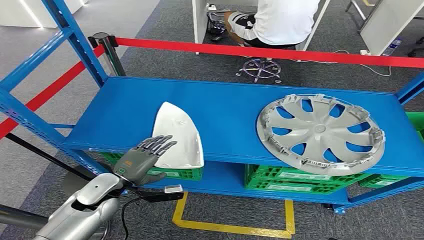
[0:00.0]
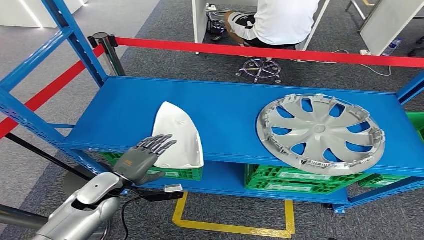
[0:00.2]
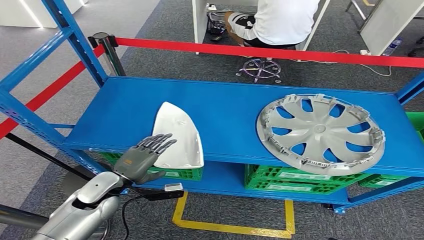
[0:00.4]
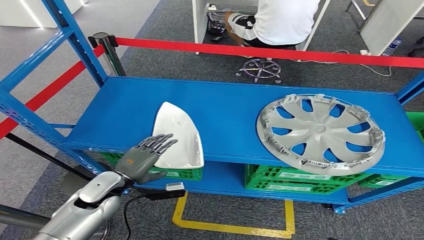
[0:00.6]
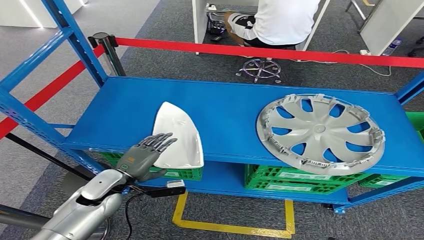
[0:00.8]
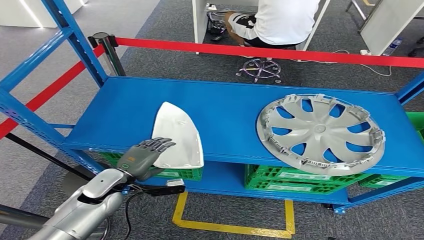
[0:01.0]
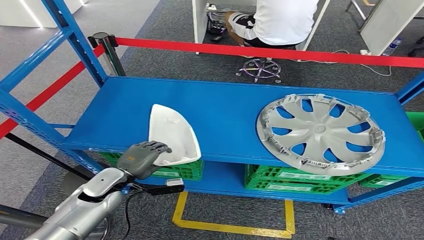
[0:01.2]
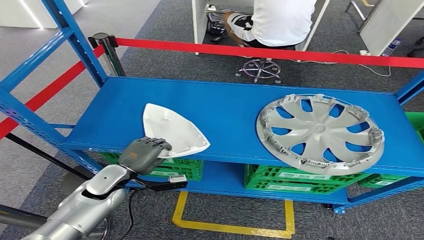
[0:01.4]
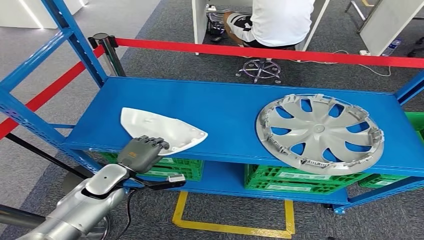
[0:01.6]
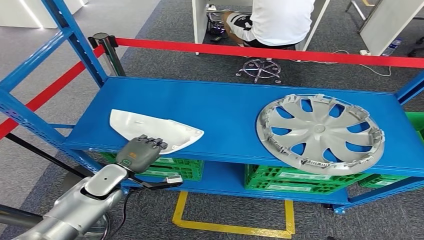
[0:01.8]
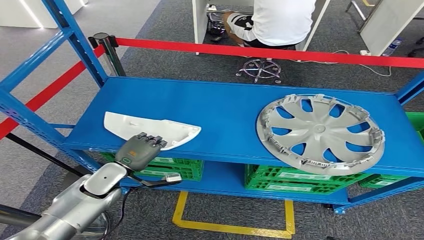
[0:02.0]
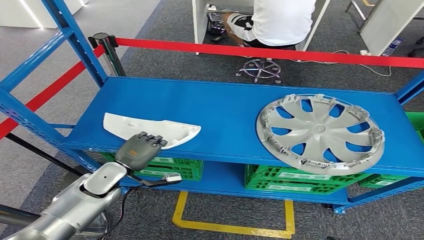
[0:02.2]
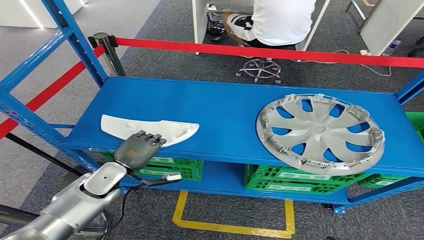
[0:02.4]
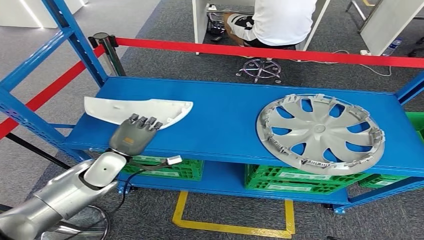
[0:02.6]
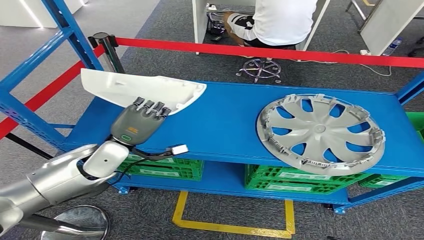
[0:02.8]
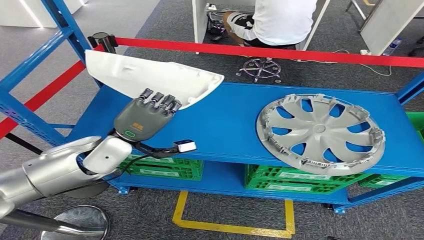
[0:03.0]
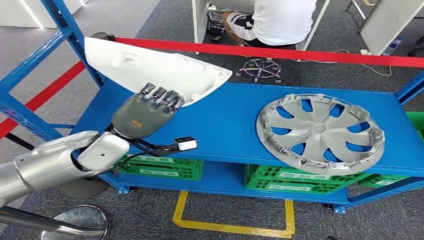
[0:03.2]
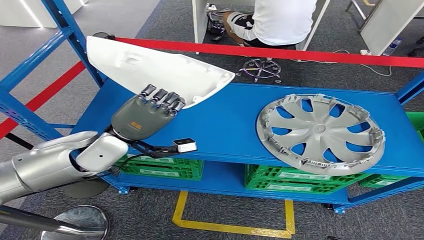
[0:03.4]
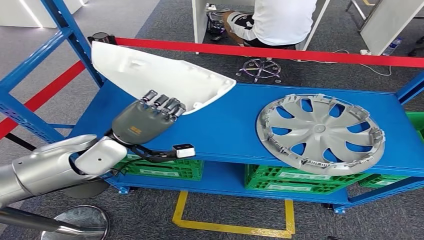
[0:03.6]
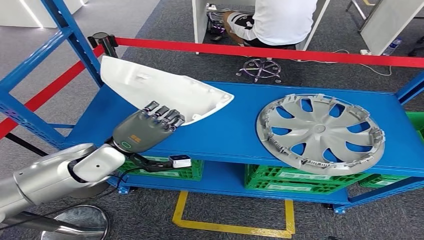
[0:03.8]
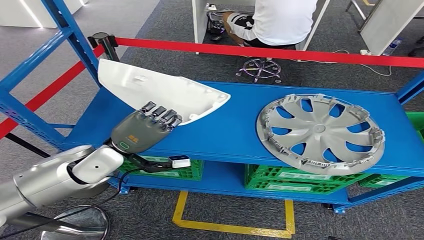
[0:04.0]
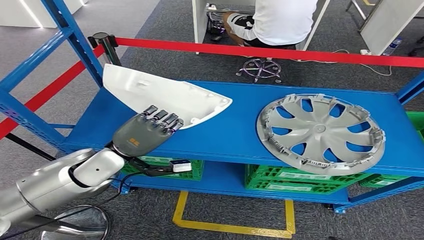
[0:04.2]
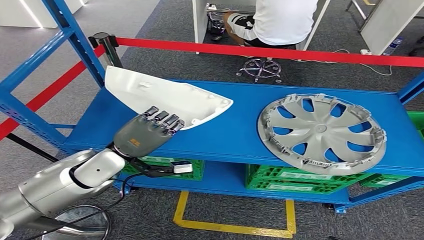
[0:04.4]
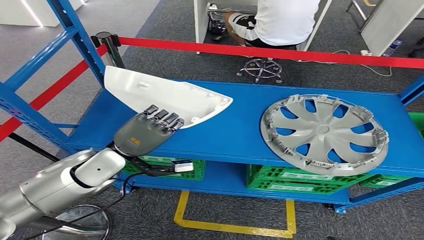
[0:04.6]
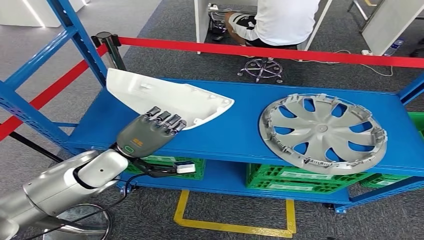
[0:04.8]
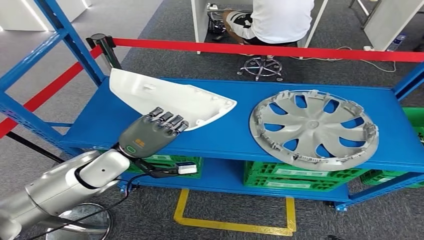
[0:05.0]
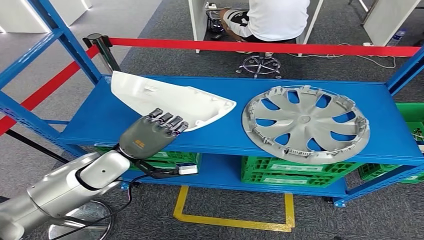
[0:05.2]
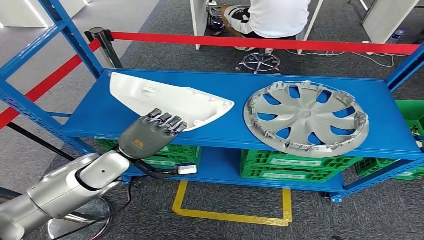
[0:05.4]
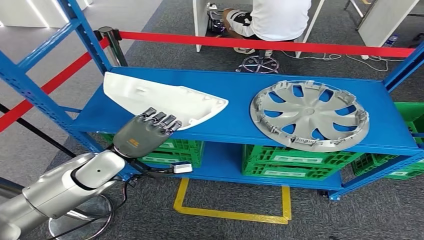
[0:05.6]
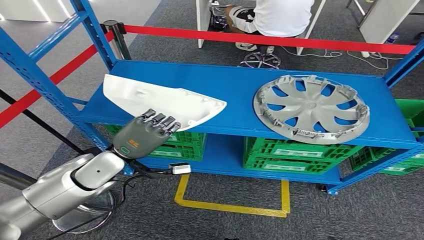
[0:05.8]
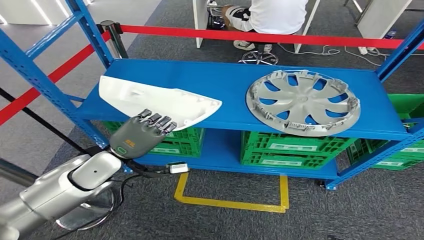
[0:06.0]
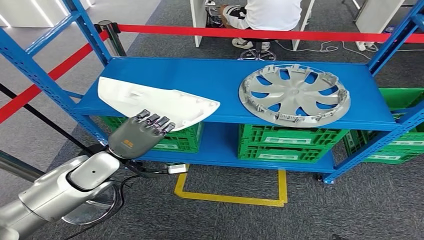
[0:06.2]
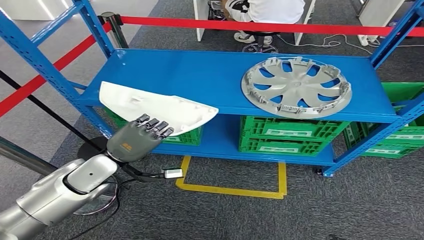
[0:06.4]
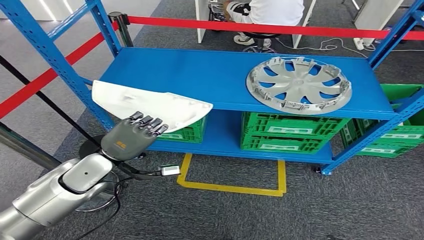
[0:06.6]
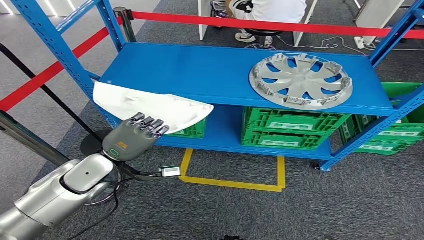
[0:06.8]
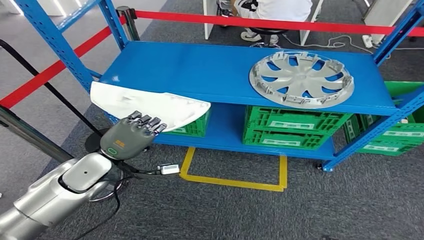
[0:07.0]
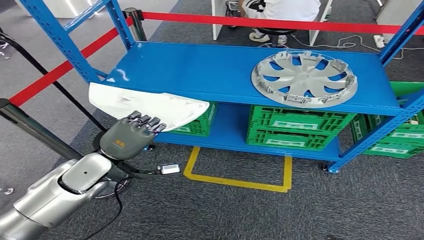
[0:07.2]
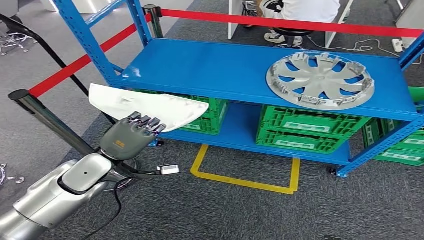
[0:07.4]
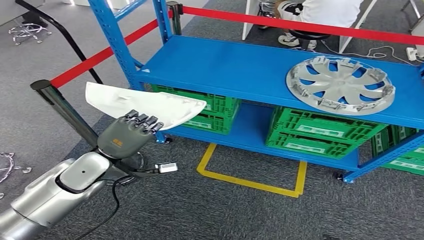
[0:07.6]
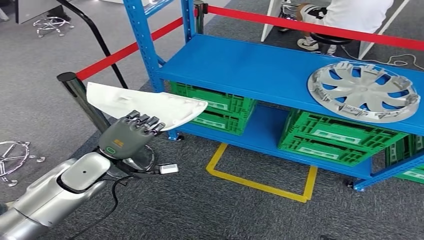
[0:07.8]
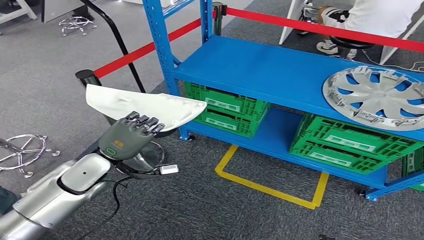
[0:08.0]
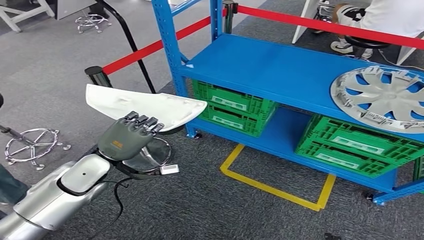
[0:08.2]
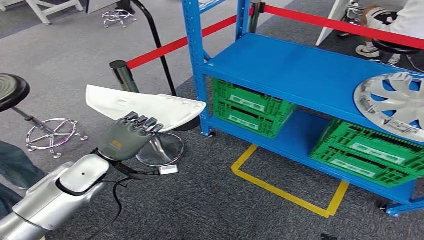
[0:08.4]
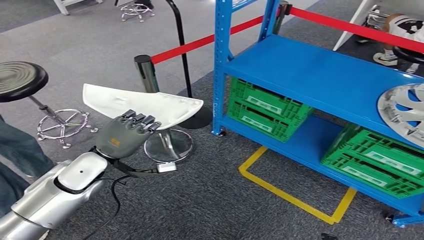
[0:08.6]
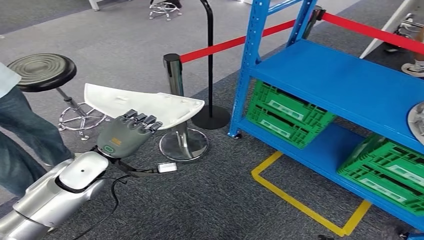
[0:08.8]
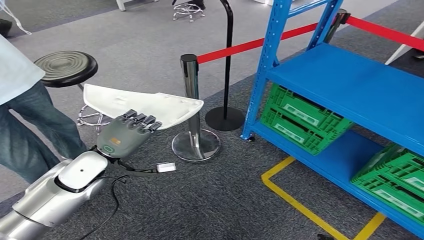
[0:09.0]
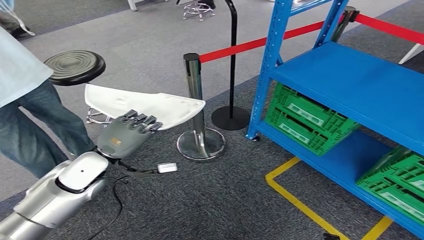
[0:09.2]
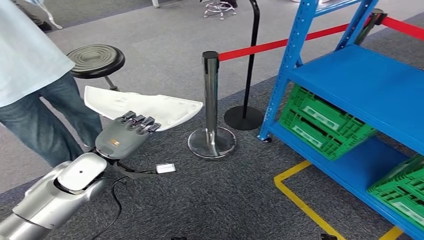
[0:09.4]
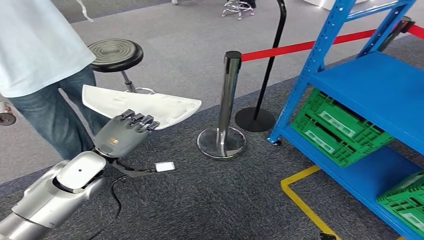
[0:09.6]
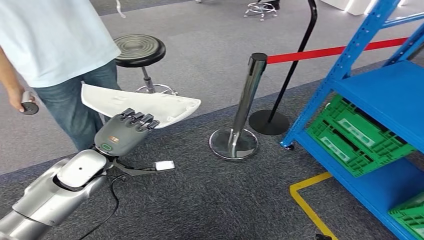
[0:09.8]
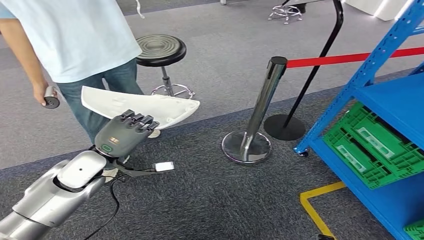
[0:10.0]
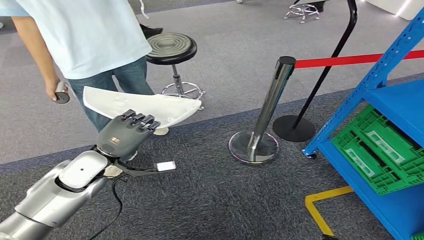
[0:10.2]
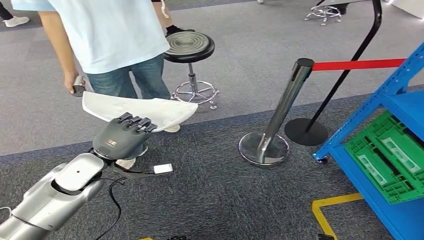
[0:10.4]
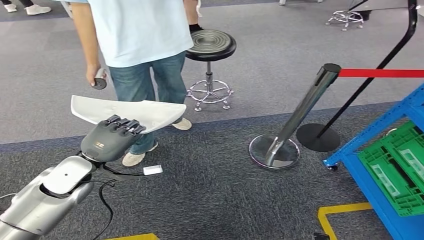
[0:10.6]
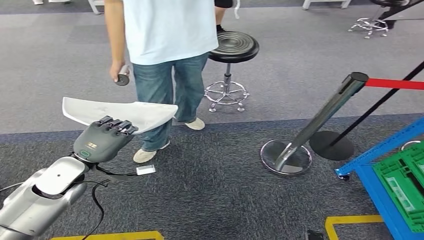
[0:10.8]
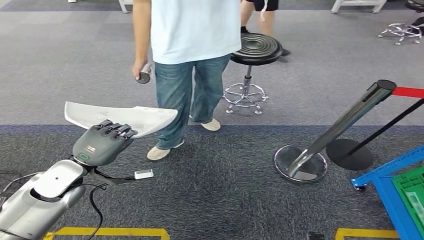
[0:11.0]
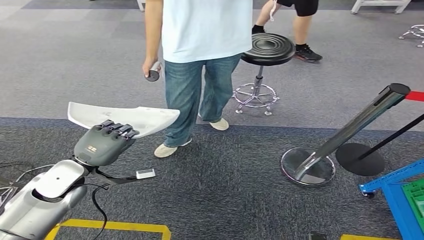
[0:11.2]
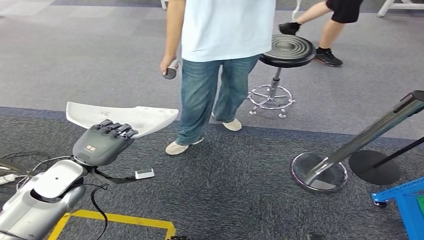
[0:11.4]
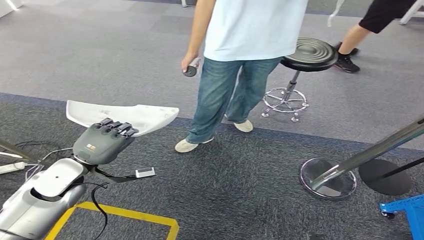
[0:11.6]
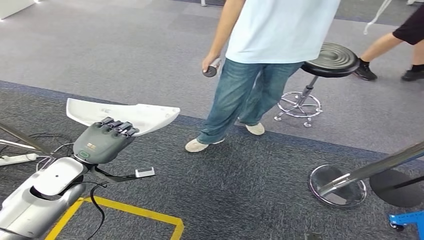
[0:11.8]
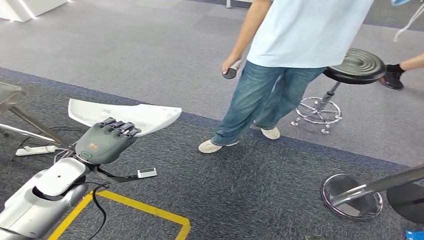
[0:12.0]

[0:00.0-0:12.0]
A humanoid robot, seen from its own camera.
Step, 0:00.0 to 0:05.6: Pick up the small component from the shelf.
0:01.6 to 0:03.0: The left hand is displaced upward by approximately 15 cm.
0:03.0 to 0:04.4: The hands stay close to where they were, moving slightly.

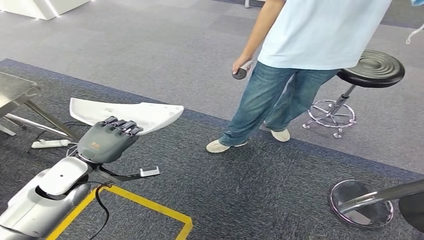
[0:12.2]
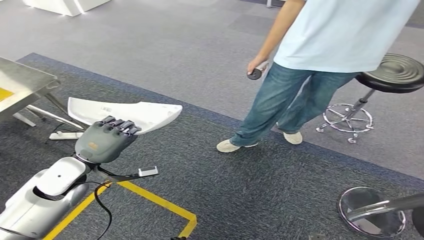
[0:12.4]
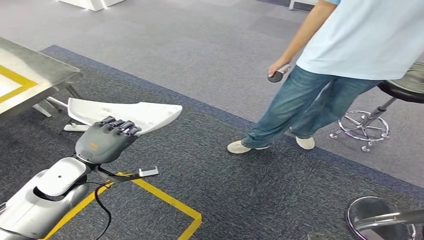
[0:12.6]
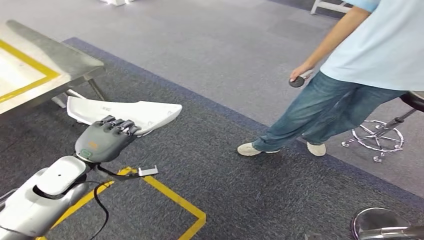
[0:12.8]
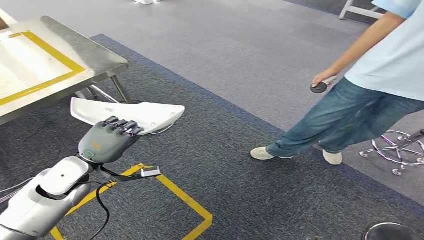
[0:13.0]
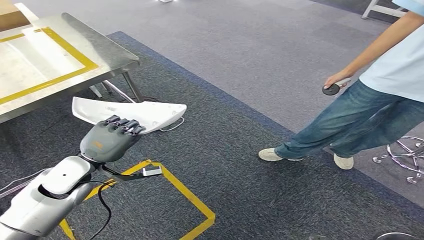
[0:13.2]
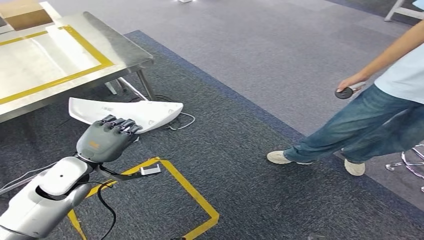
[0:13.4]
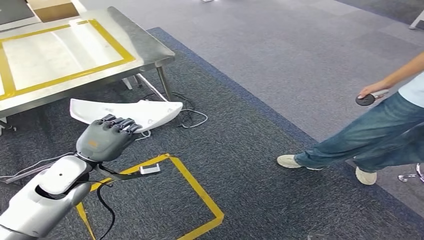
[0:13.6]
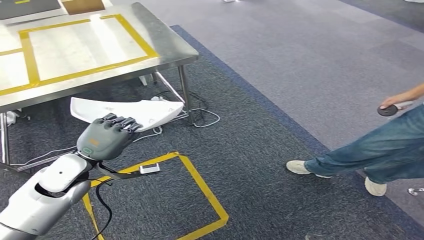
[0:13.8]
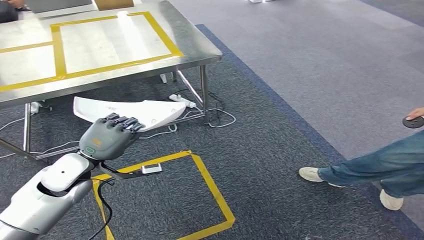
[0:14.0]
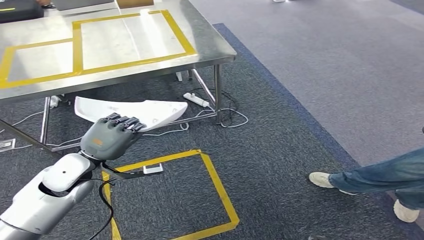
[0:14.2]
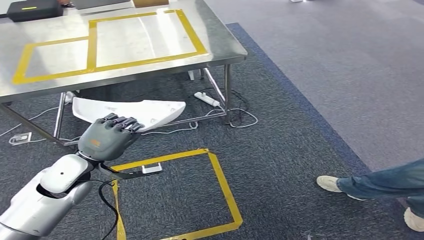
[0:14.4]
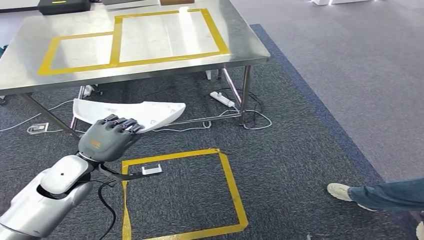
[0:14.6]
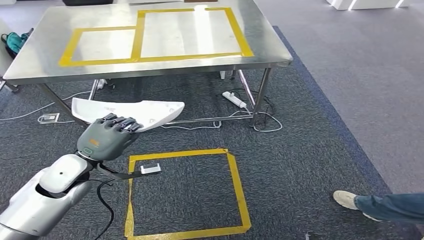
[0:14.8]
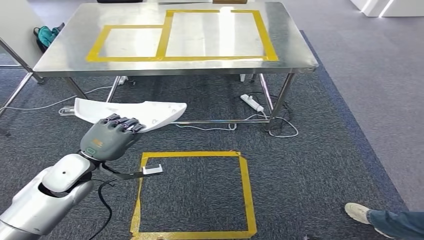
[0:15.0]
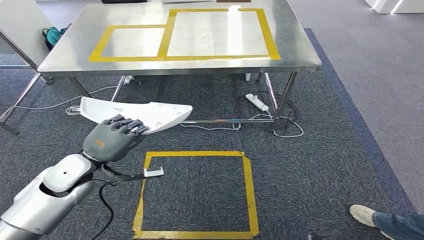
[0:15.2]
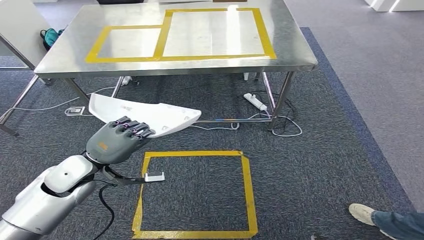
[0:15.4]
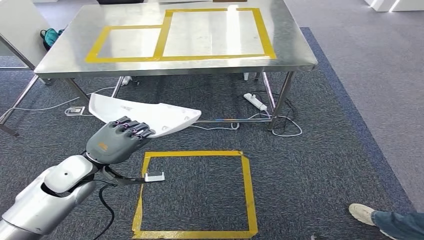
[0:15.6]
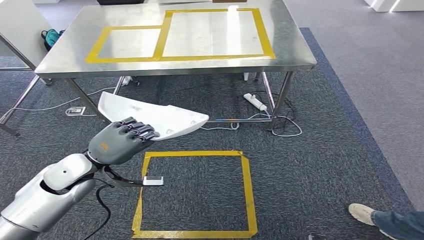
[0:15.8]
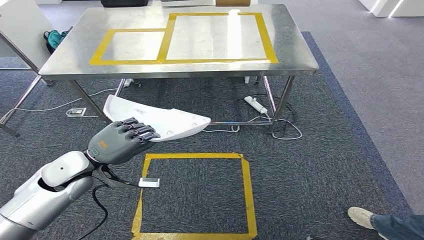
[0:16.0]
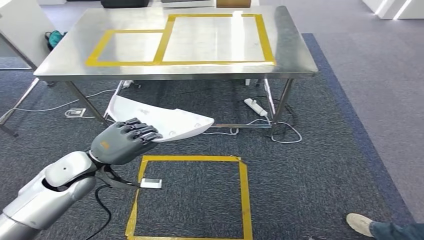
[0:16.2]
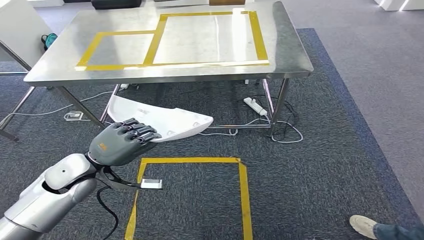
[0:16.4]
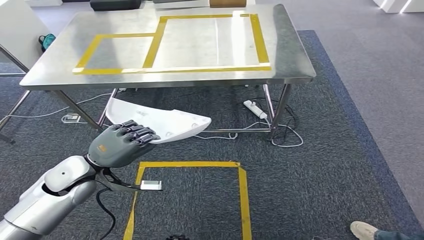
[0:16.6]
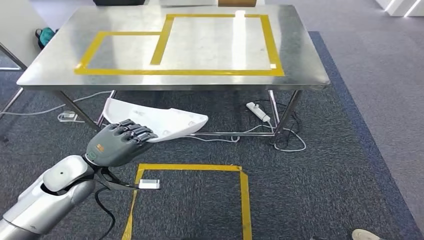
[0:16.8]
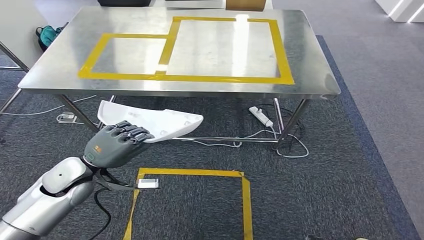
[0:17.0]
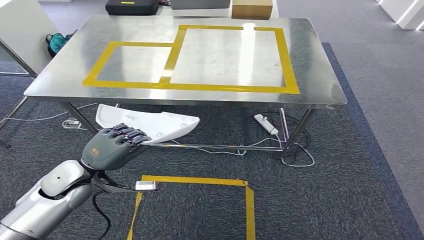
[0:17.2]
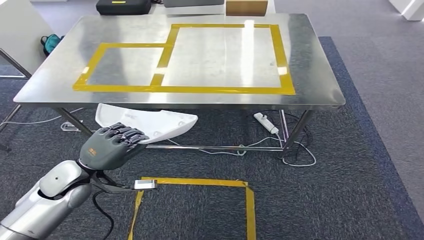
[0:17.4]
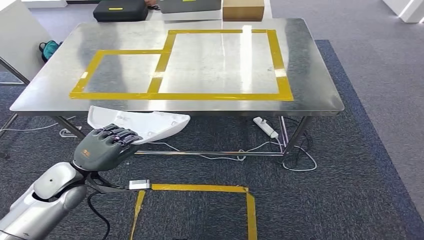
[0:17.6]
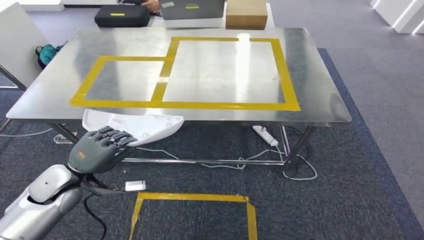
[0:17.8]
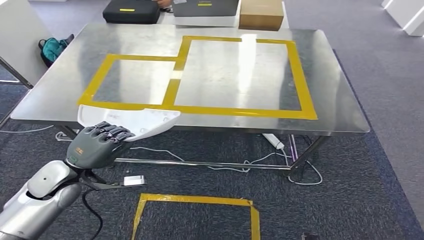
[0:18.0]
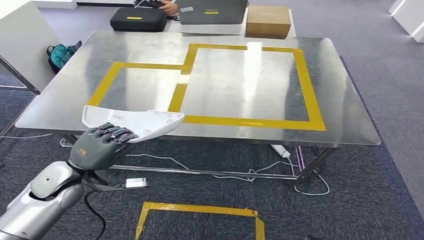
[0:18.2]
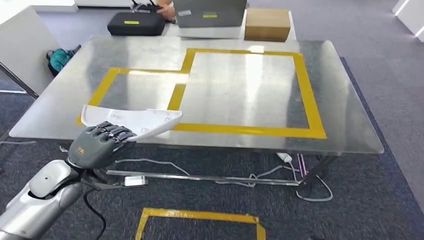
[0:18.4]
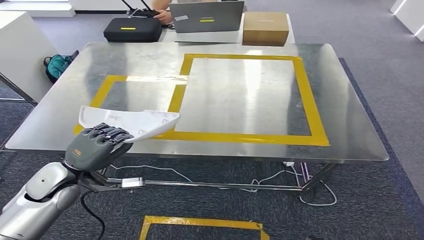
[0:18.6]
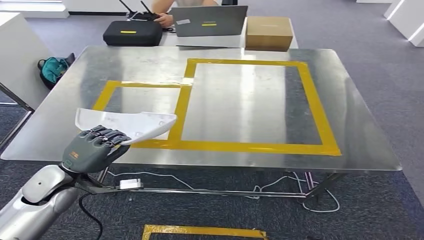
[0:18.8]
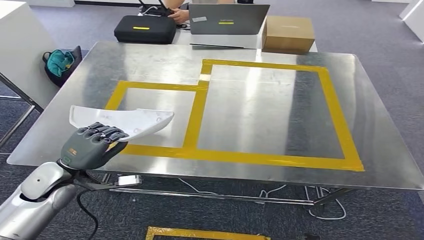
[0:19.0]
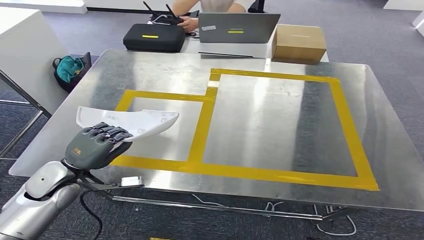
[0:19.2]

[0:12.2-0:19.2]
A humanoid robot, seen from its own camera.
Step, 0:12.2 to 0:17.2: Move the small component to the workbench.
